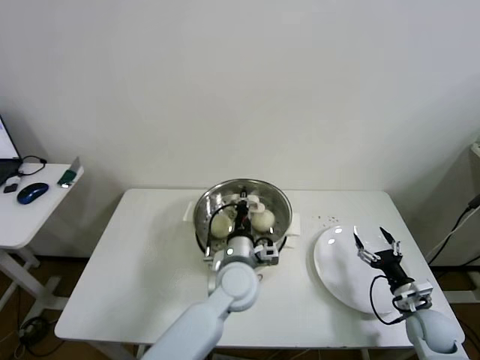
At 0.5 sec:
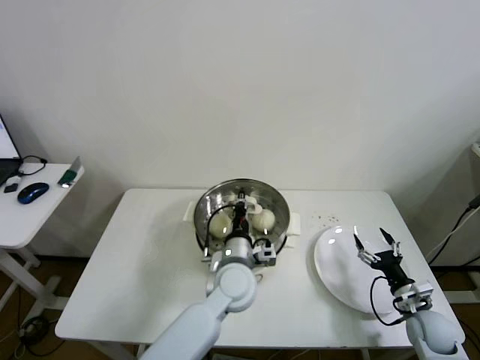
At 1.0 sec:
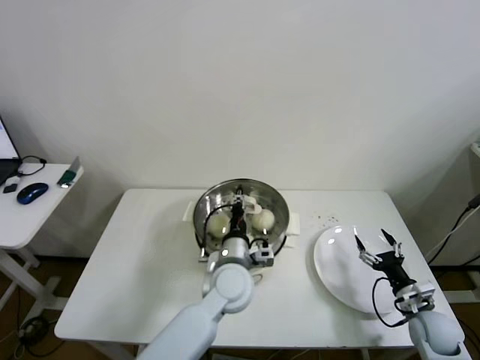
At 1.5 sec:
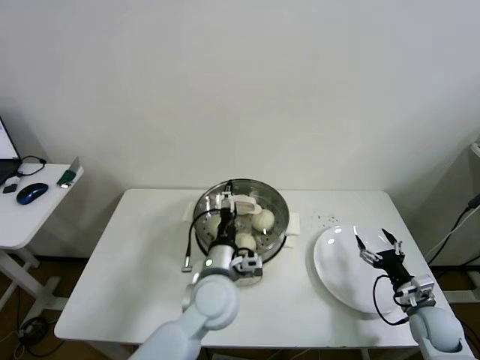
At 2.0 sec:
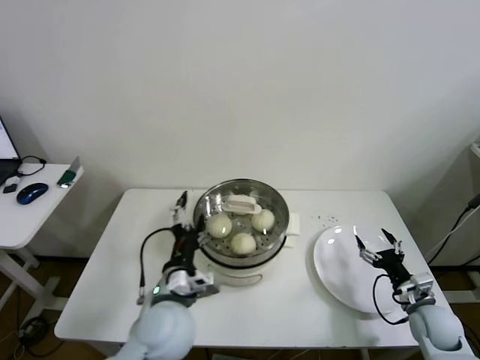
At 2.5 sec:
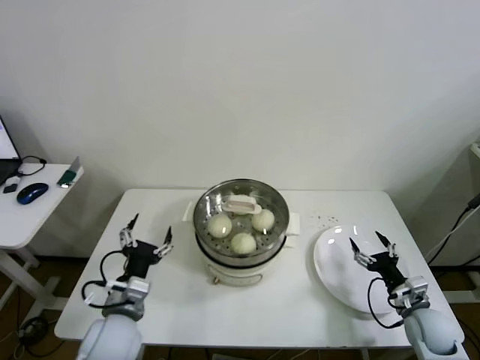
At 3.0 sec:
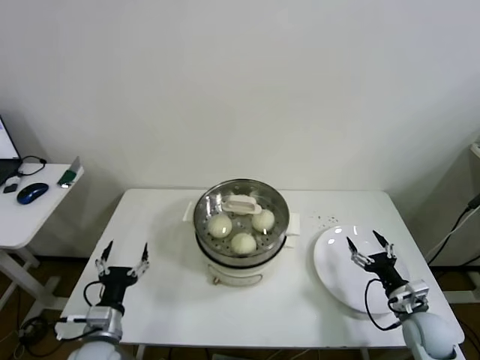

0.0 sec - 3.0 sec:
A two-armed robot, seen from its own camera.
0.0 sec - 1.5 sec: The left gripper moves some 5 cm, and opens its fingers.
1.5 sec - 3.0 sec: The left gripper travels to the left by some 25 cm.

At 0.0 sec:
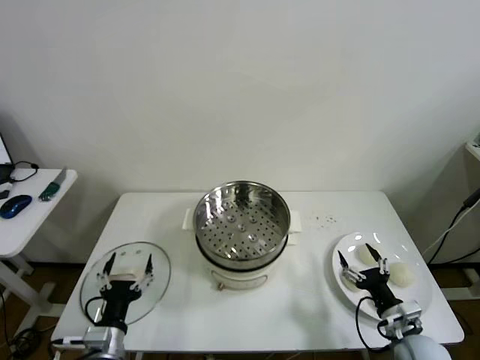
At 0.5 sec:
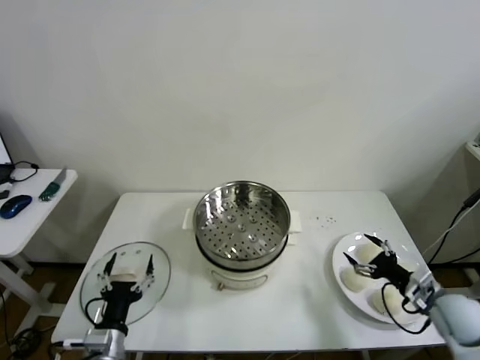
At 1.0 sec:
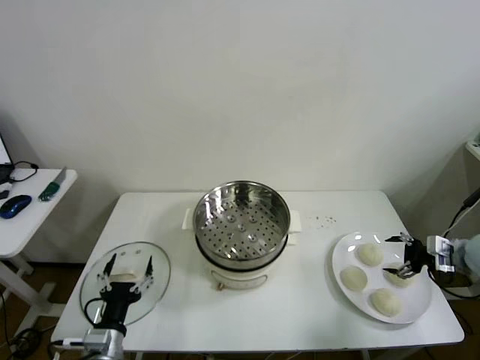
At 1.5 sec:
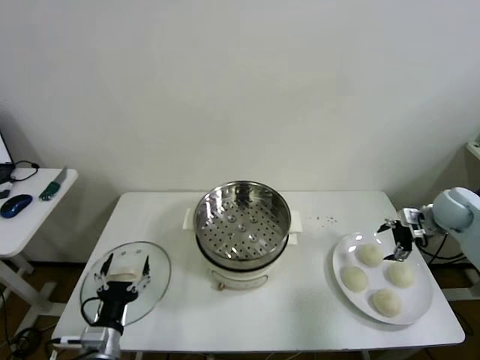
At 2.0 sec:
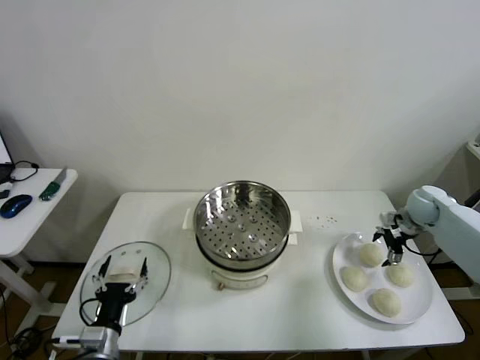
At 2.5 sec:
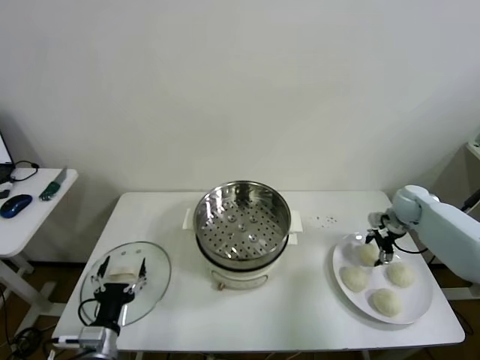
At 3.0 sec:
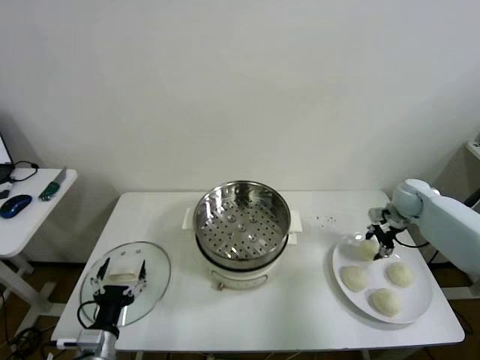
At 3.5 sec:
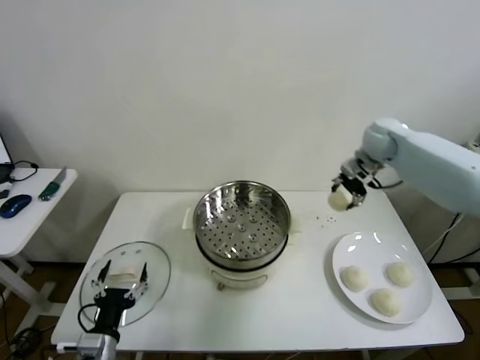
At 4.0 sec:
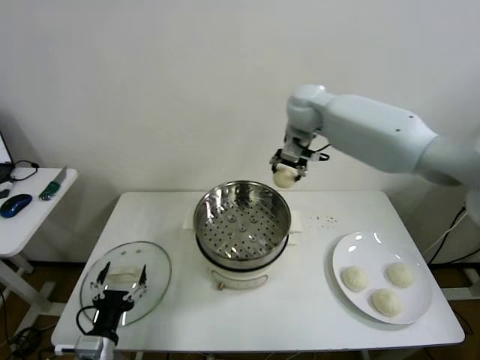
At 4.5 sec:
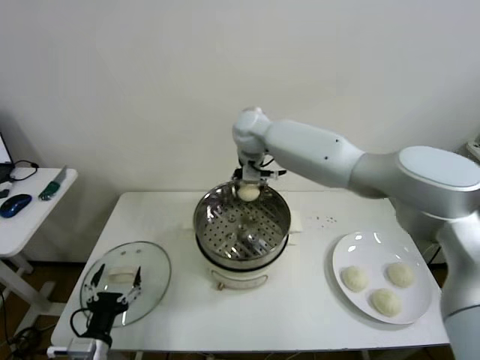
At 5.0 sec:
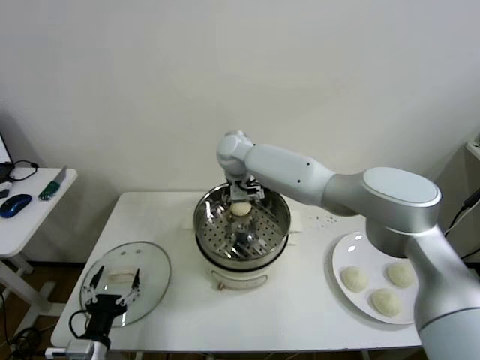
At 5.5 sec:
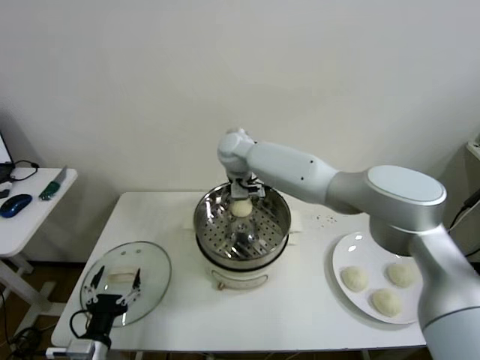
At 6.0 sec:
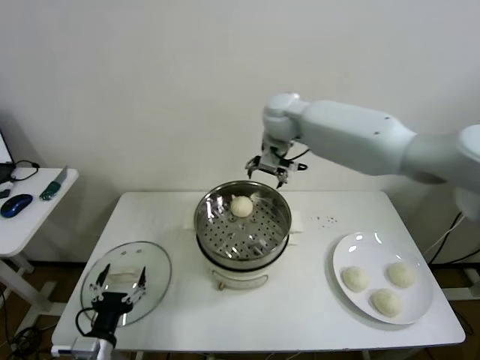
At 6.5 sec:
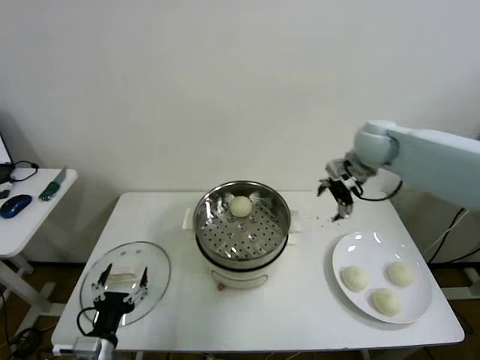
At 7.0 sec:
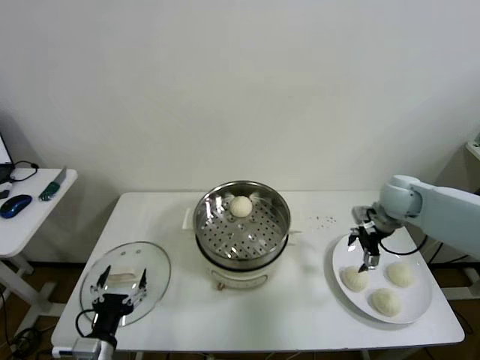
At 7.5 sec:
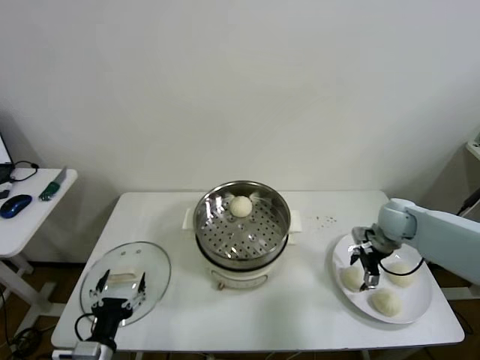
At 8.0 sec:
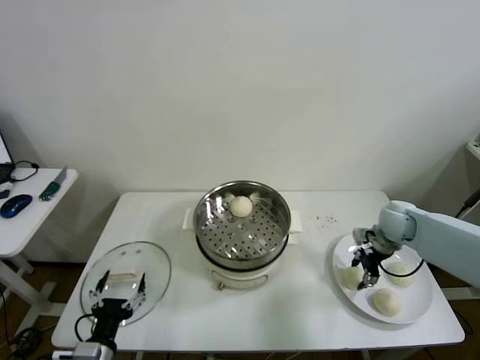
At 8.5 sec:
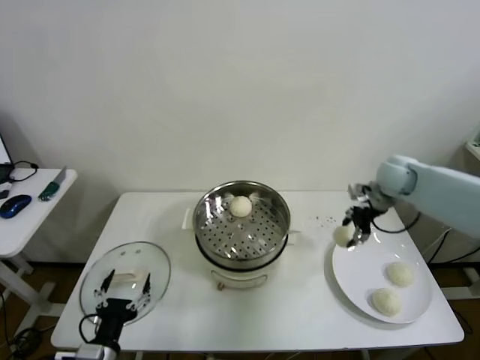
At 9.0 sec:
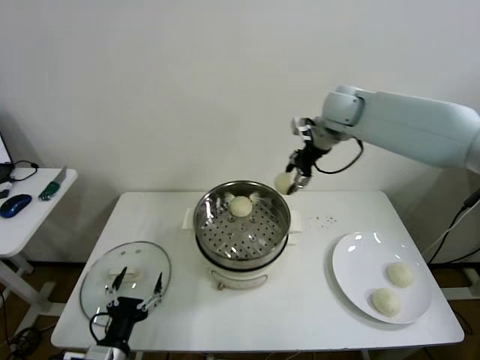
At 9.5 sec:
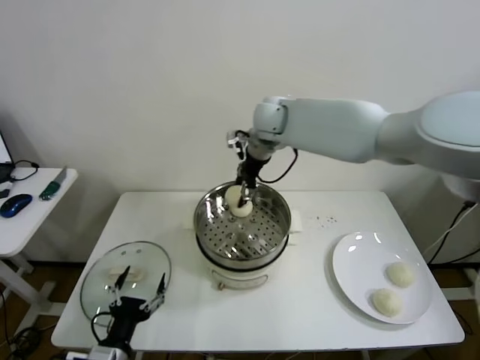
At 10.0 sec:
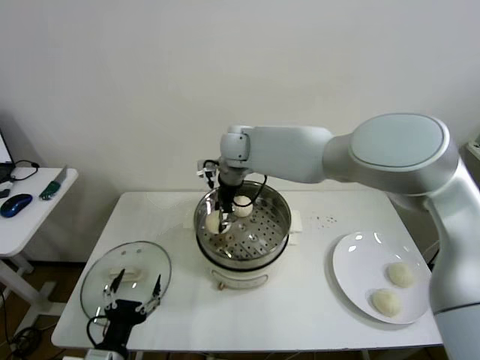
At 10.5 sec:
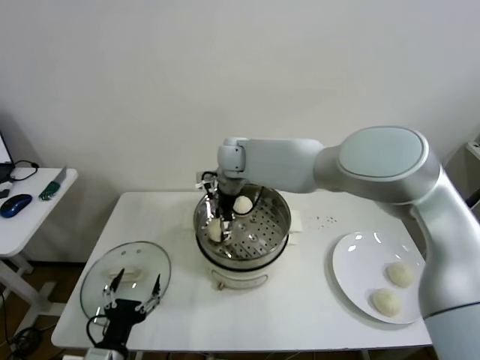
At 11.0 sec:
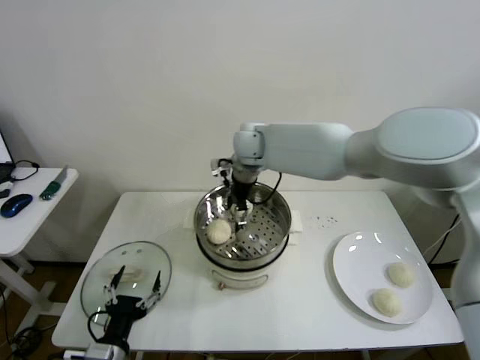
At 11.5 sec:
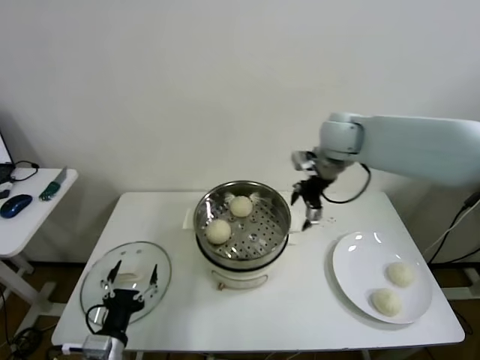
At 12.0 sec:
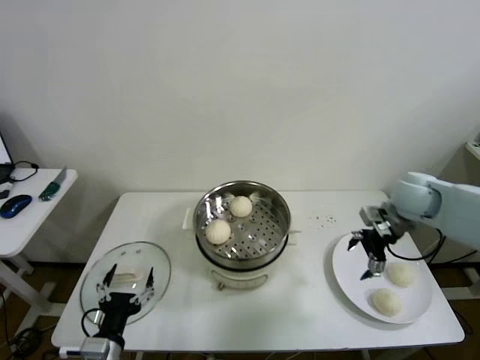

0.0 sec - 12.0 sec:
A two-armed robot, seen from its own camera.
Step, 0.0 sec - 2.5 sec: Grasp the baozi in the plate with right gripper.
Step, 3.0 sec - 5.0 sec: Place the baozi on the steamer with right gripper.
Step, 5.5 sec - 7.5 sec: Grasp the baozi in the plate with right gripper.
Step, 8.0 sec - 10.5 sec: Place the baozi on the steamer with right gripper.
2.0 sec - 4.0 sec: The right gripper travels to the left and upward by some 40 cm, and closes its fingers.
4.0 sec - 6.0 sec: The right gripper reaches some 15 cm to the left, then returns, and opens its fingers.
6.0 sec - 8.0 sec: The right gripper is displaced to the right and downward by some 35 cm, and closes its fingers.
8.0 sec - 10.0 sec: The right gripper moves to the left and upward, about 40 cm.
10.0 sec - 12.0 sec: The right gripper is displaced to the right by about 40 cm, and opens its fingers.

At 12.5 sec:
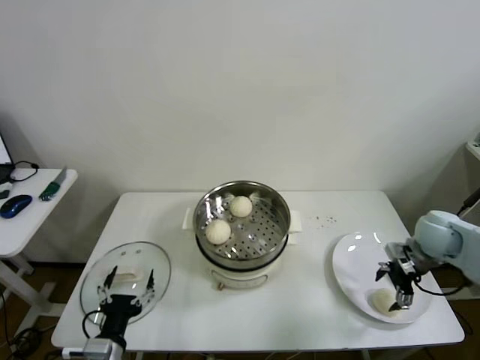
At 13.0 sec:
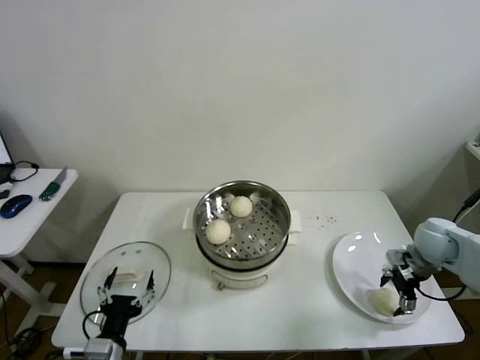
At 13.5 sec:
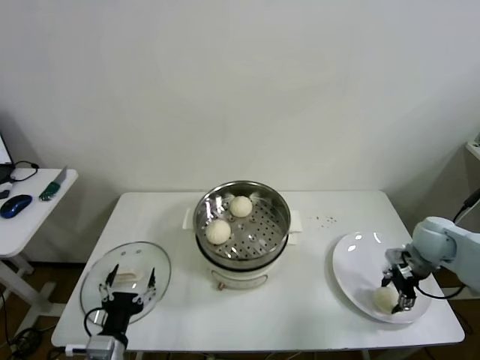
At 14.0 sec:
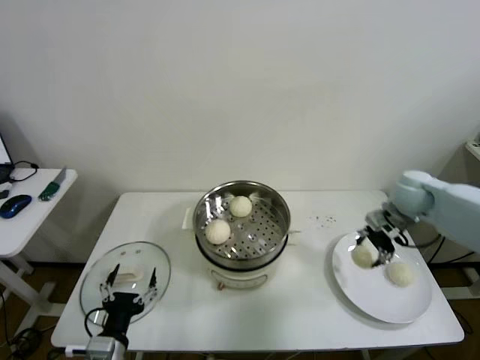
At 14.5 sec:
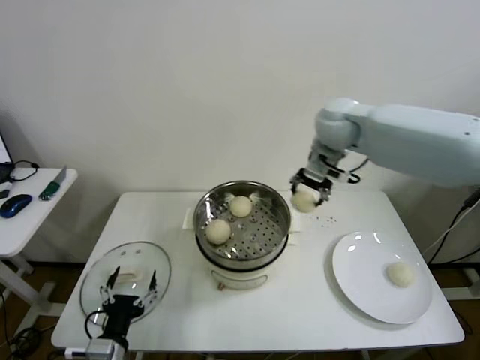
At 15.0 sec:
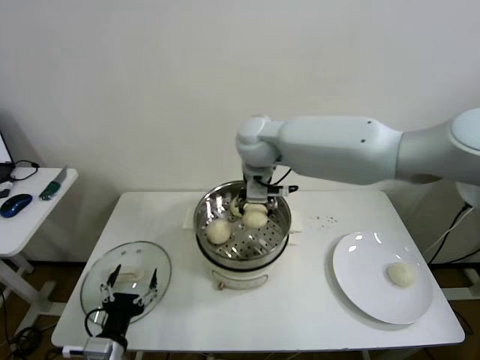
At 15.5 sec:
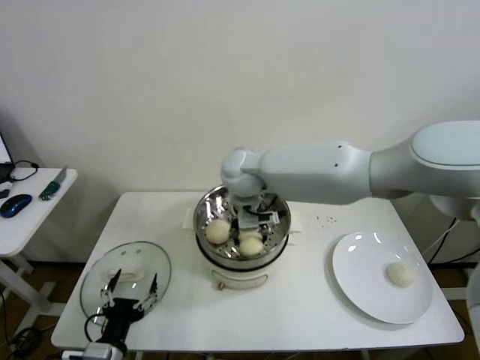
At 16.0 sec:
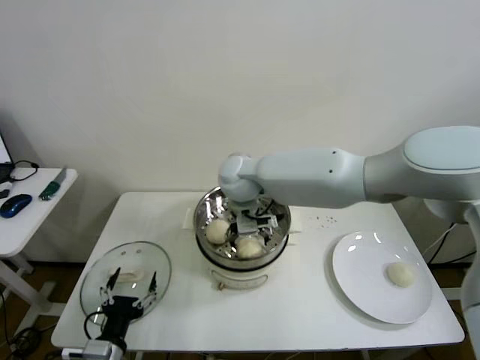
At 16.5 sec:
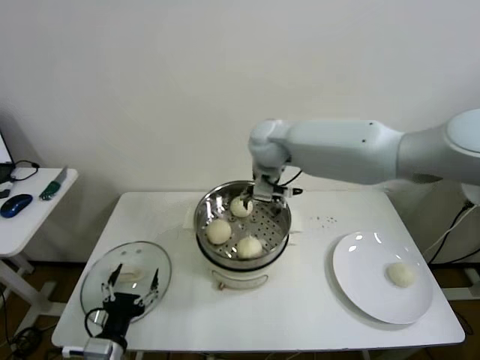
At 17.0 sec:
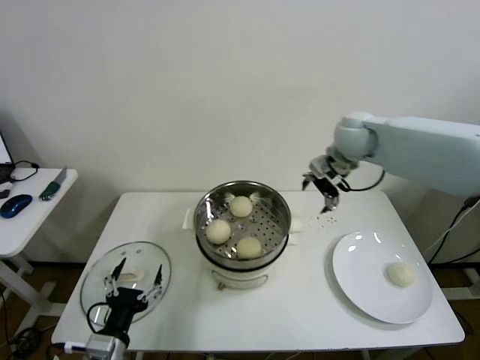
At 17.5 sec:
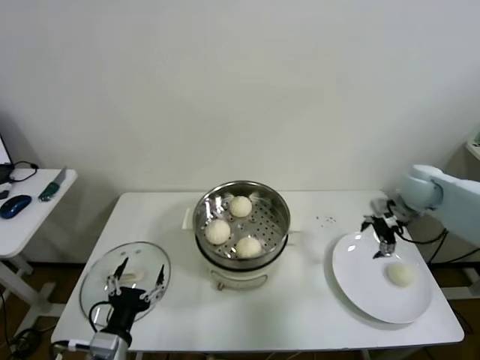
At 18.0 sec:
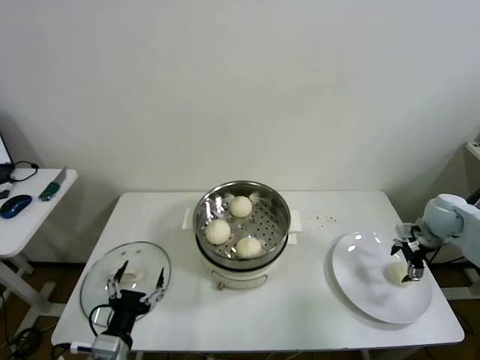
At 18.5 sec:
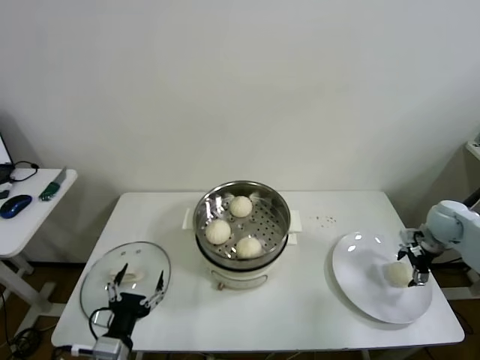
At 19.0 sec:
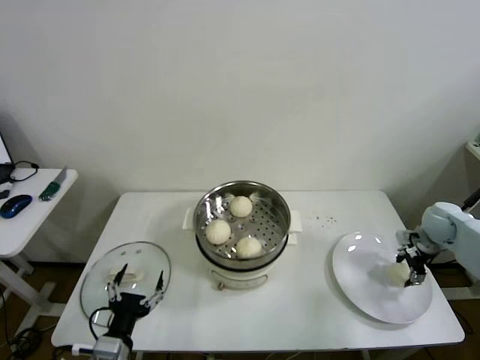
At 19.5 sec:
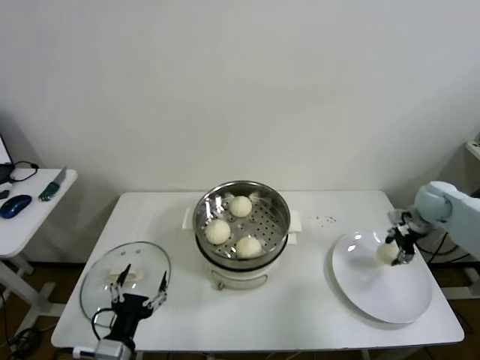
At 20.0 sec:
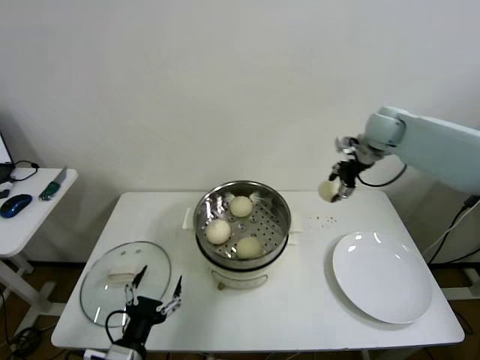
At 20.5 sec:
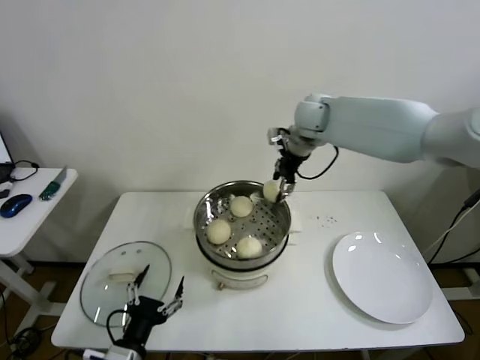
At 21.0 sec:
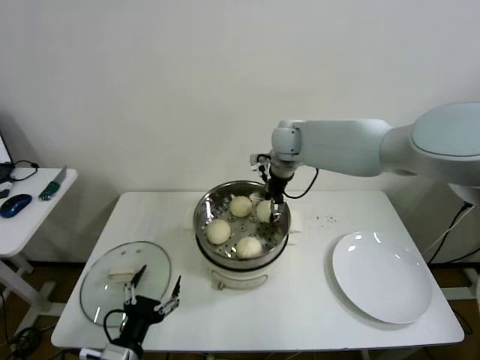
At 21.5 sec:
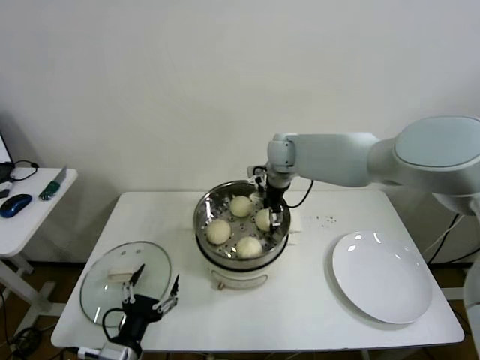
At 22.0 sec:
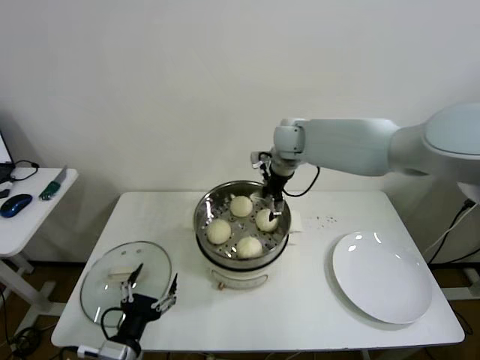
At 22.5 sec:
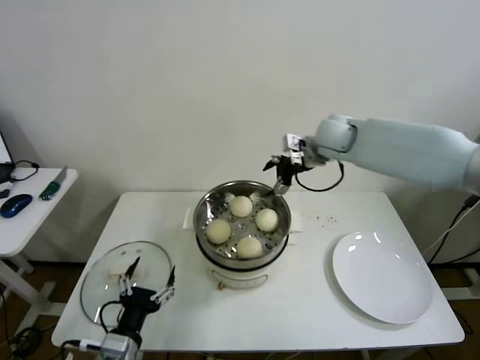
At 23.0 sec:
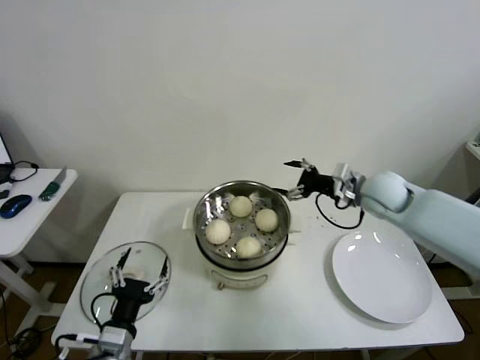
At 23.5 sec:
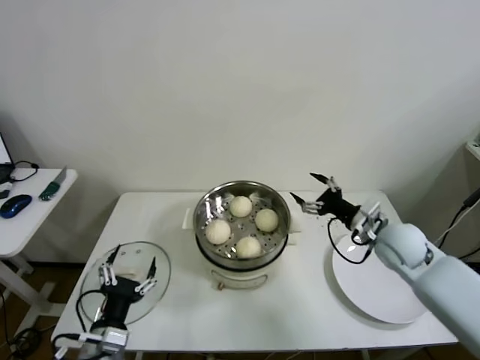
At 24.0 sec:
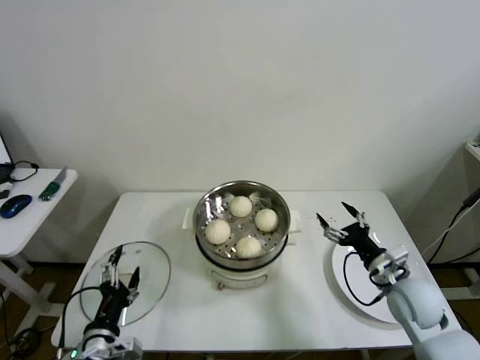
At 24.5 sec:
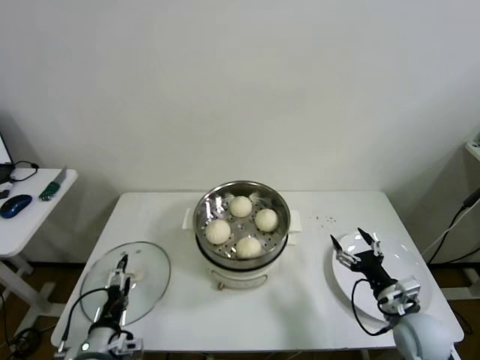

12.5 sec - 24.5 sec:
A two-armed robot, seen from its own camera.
Step, 13.5 sec - 16.0 sec: Place the baozi on the steamer with right gripper.
Step, 16.5 sec - 19.0 sec: Grasp the baozi in the plate with right gripper.
Step, 19.5 sec - 21.0 sec: Place the baozi on the steamer with right gripper.
12.5 sec - 14.5 sec: The right gripper heads to the left, upward and forward, covering approximately 35 cm, and closes up.
14.5 sec - 16.5 sec: The right gripper is displaced to the left by about 15 cm, and opens its fingers.
16.5 sec - 18.5 sec: The right gripper heads to the right and downward, covering roughly 50 cm.
18.5 sec - 20.5 sec: The right gripper heads to the left, upward and forward, covering some 40 cm, and closes its fingers.
20.5 sec - 22.5 sec: The right gripper travels to the left and back again, about 5 cm each way, and opens up.
22.5 sec - 24.5 sec: The right gripper moves backward, downward and to the right, roughly 50 cm. Meanwhile the left gripper shifts roughly 5 cm to the left.
